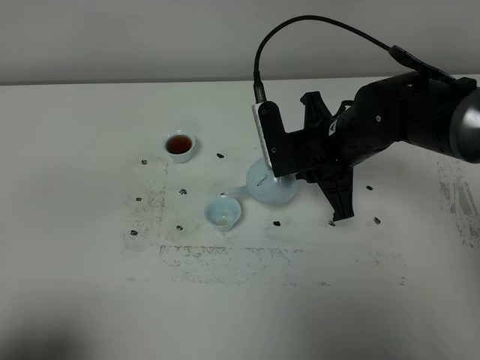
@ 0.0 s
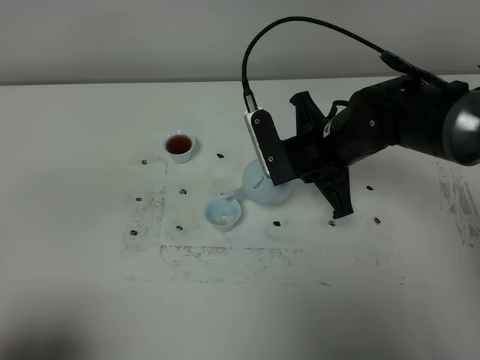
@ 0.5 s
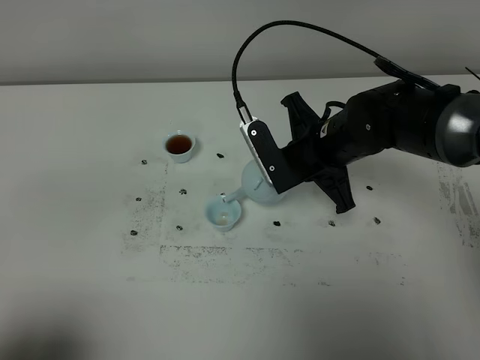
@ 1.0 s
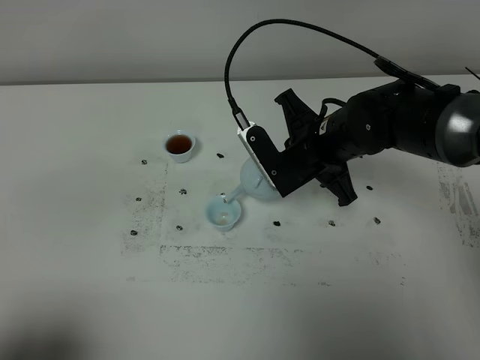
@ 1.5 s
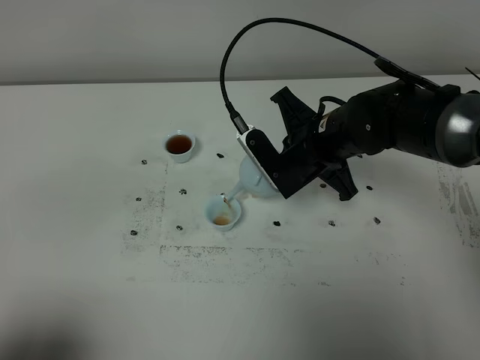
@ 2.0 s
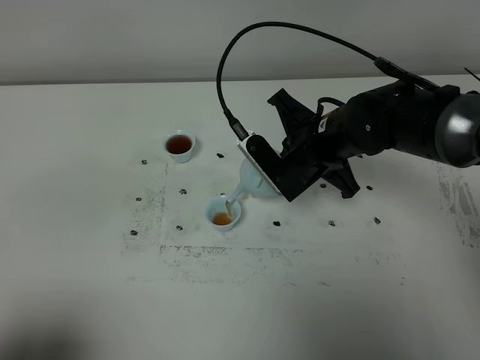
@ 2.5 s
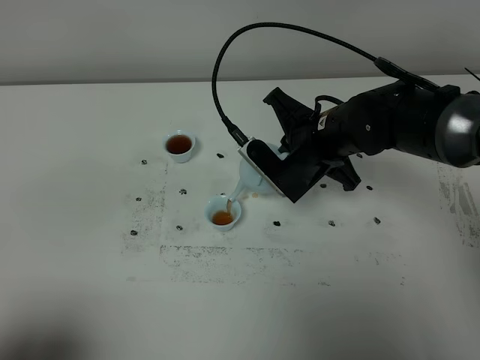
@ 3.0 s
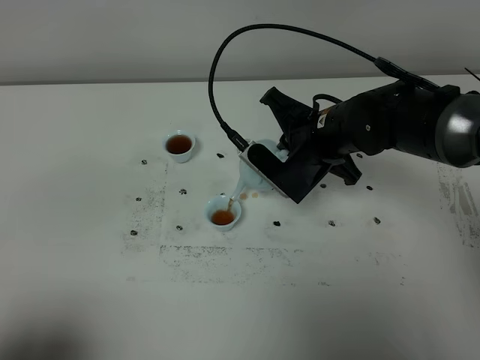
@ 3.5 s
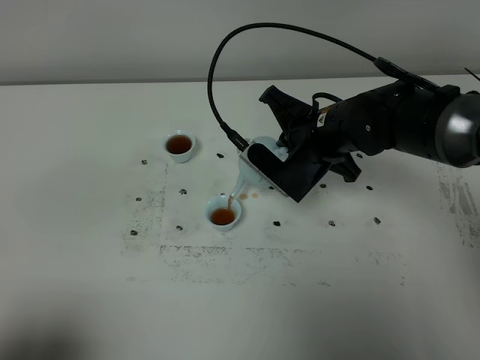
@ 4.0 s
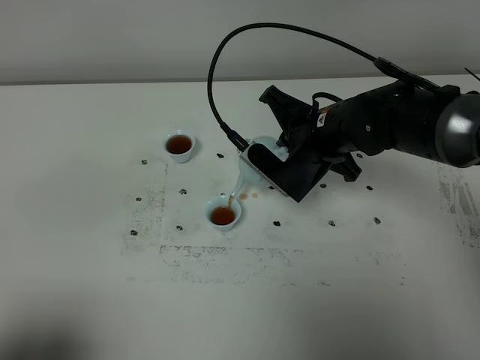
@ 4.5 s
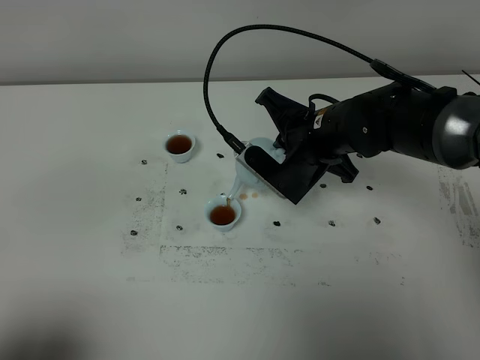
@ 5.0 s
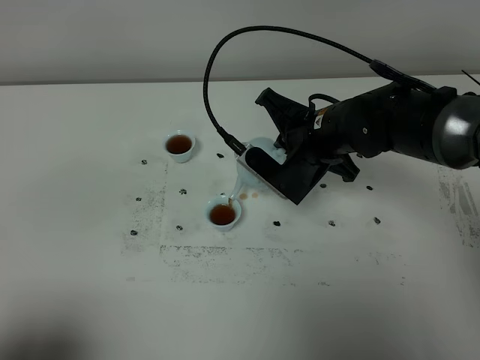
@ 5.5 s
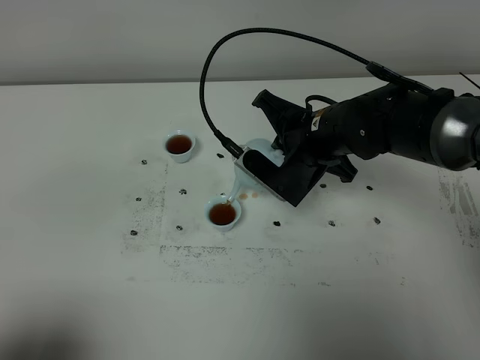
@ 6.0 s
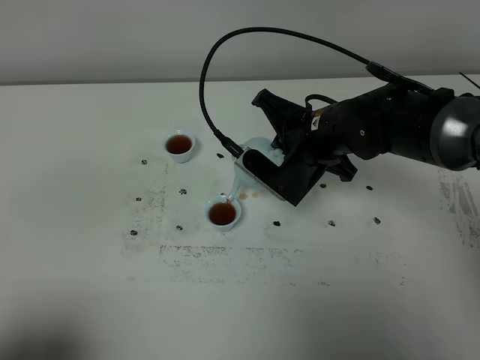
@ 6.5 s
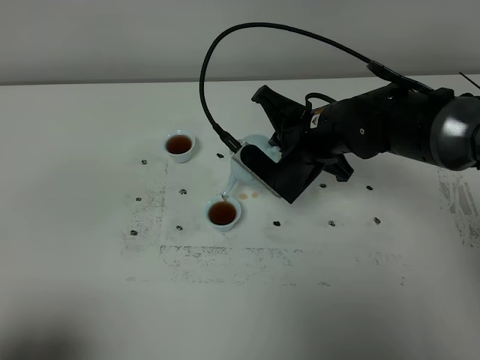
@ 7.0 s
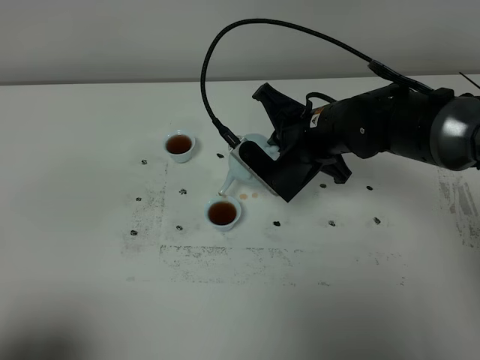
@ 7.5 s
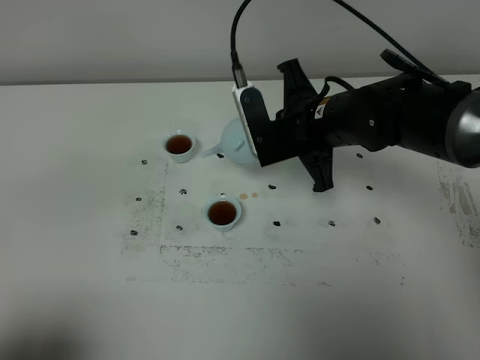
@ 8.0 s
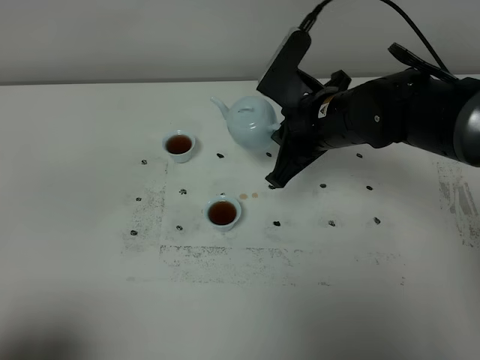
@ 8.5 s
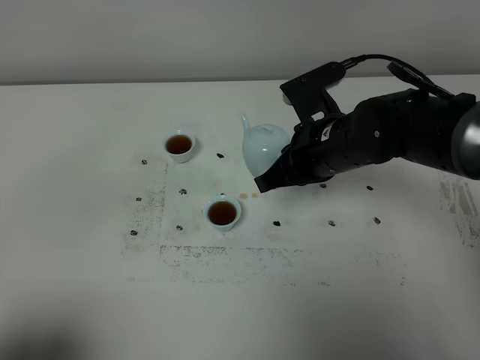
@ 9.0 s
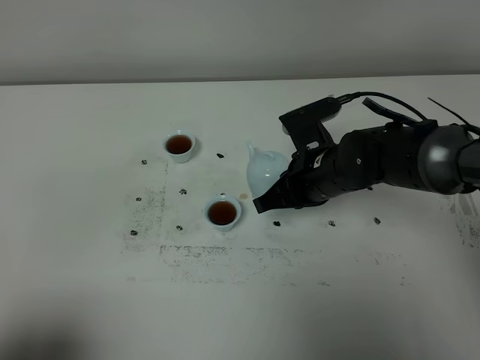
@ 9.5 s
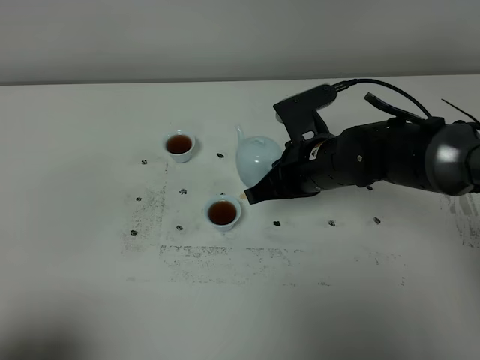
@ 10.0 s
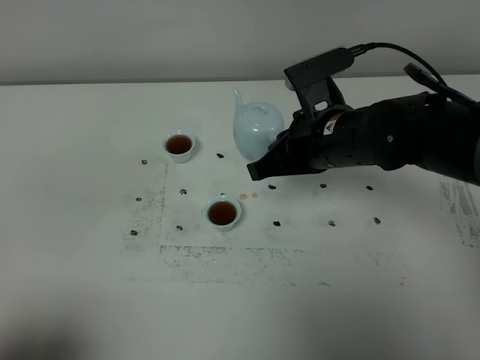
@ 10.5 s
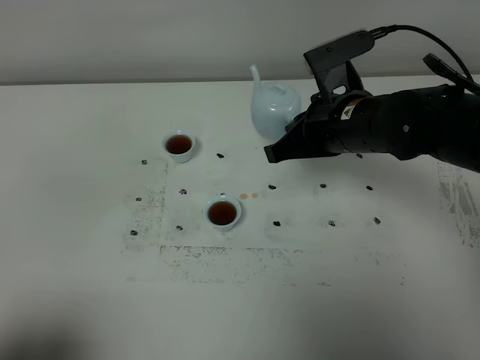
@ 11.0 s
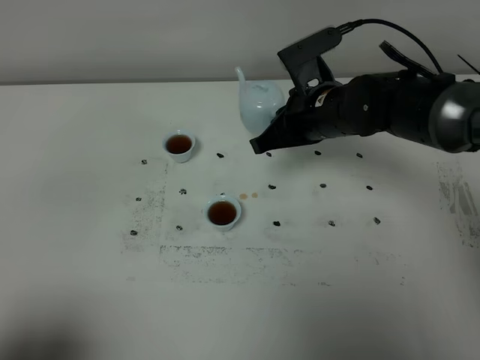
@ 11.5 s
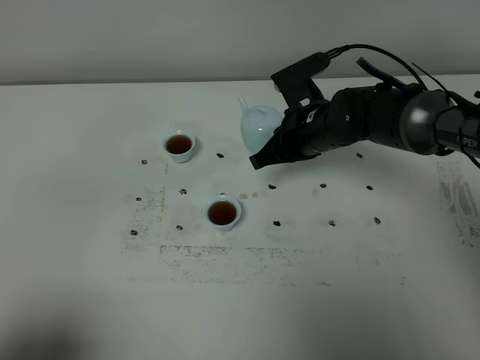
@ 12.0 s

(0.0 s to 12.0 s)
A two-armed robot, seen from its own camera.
Task of the whole recording: grasp the blue porcelain teapot and pour the tea into the two blue porcelain teacups one by one, put the blue porcelain teapot back in its original place.
Step, 0.0 s - 8.0 s: Pour tea into the teacup with the right gripper.
2.0 s - 4.0 s: The grippers make only small movements.
4.0 s - 6.0 s: Both grippers stay about where they are.
8.0 s - 10.0 s: The right gripper moves roughly 5 cm.
10.0 s - 12.0 s: The right gripper travels forward by approximately 5 cm.

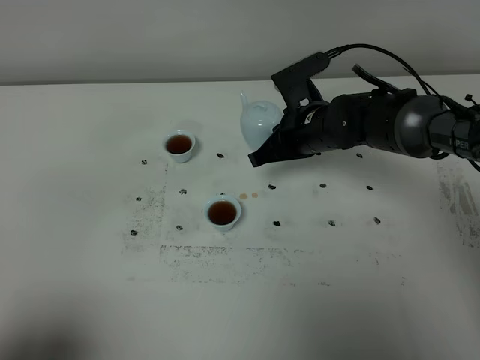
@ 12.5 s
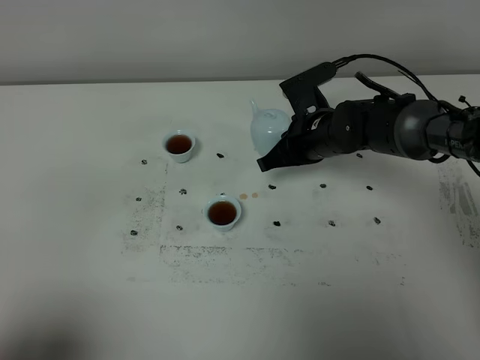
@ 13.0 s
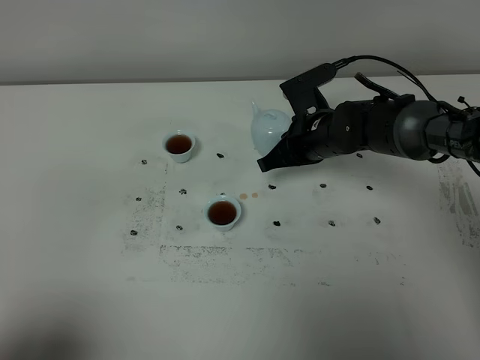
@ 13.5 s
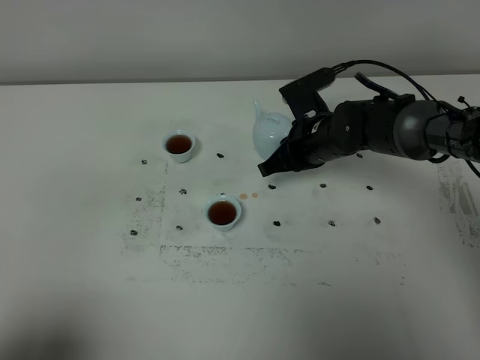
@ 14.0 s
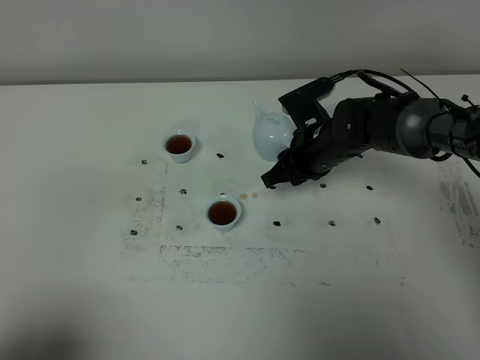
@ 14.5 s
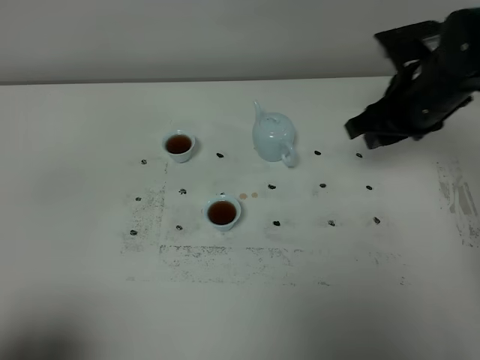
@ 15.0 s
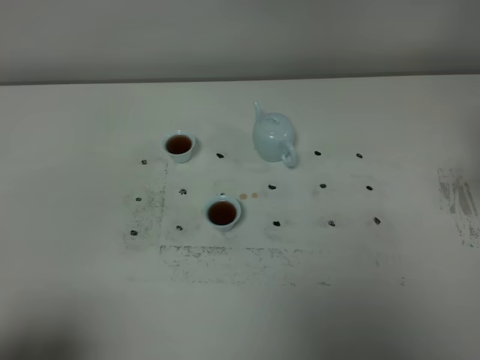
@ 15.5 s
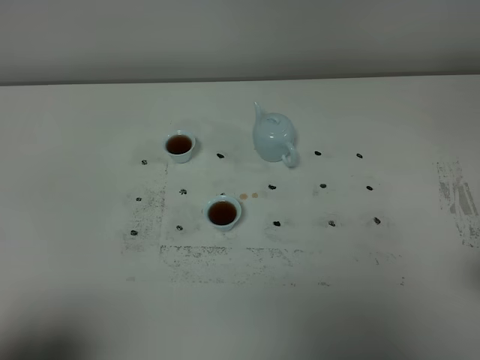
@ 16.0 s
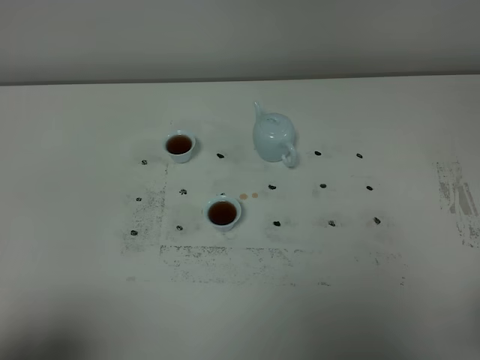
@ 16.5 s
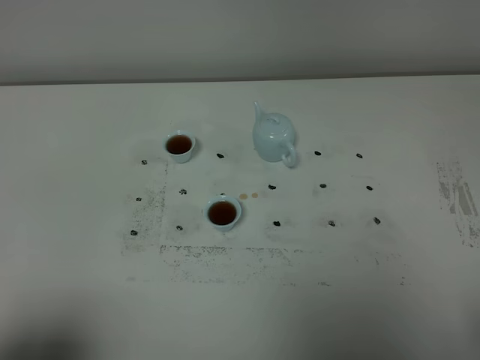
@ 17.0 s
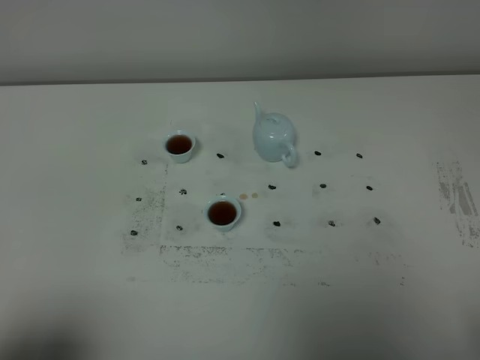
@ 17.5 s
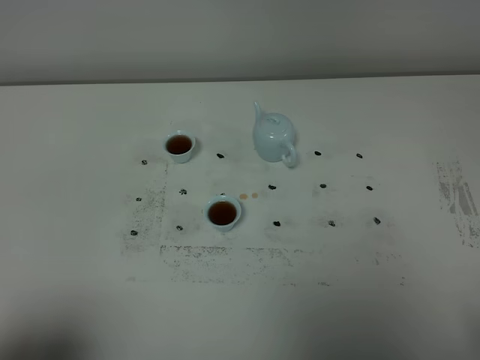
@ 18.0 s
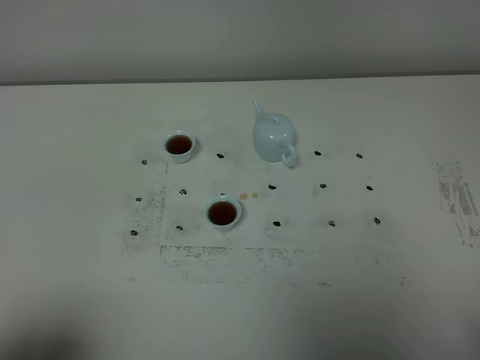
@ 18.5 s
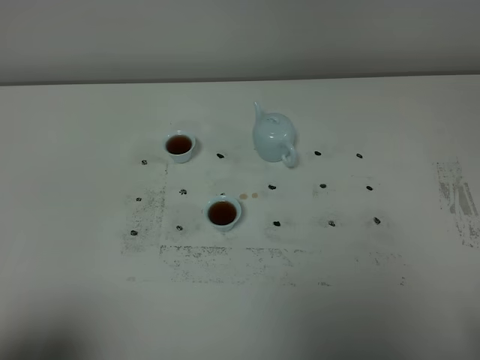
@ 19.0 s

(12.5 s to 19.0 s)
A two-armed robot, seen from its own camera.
Task of the whole recording: grasp the blue porcelain teapot and pour the tea into the two blue porcelain teacups one by one, put the blue porcelain teapot back in its original place.
12.5 s - 14.5 s: The right gripper opens up.
14.5 s - 17.0 s: The right gripper travels backward by approximately 40 cm.
